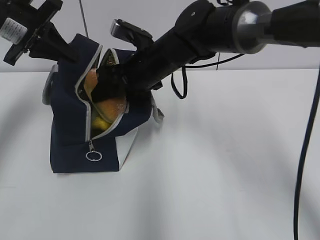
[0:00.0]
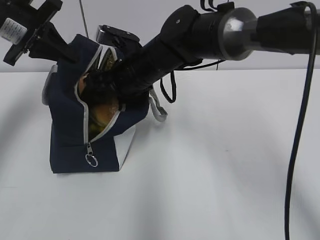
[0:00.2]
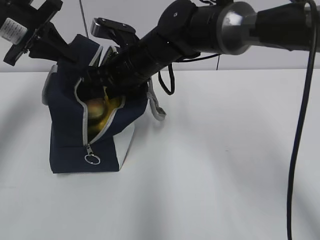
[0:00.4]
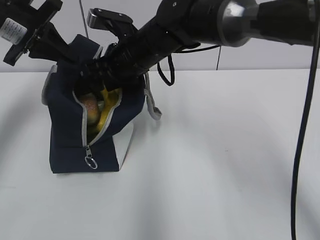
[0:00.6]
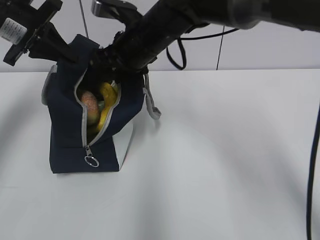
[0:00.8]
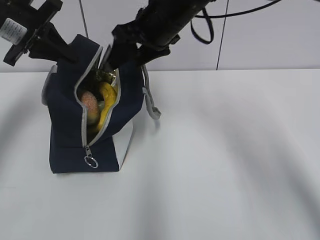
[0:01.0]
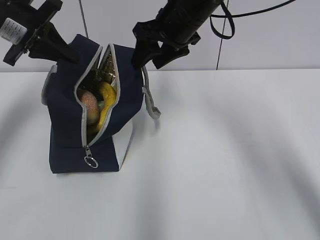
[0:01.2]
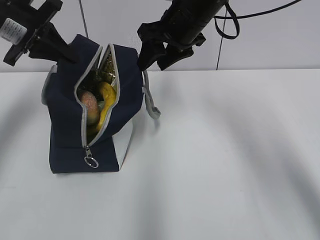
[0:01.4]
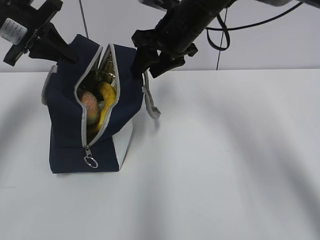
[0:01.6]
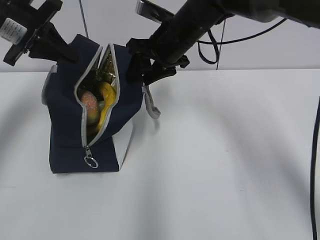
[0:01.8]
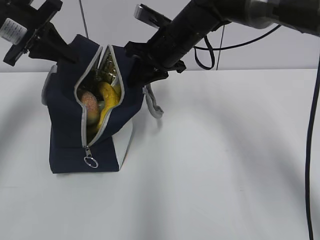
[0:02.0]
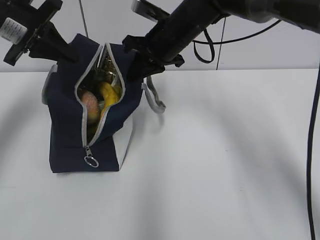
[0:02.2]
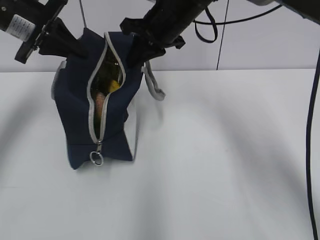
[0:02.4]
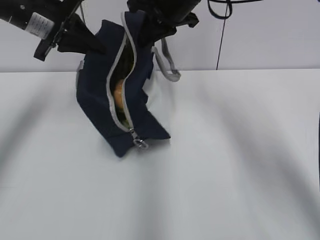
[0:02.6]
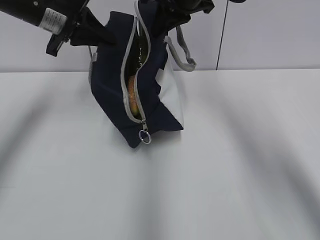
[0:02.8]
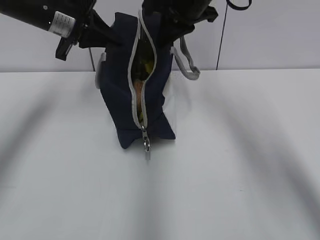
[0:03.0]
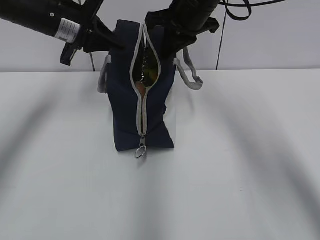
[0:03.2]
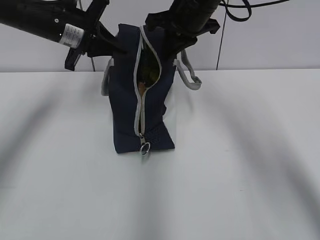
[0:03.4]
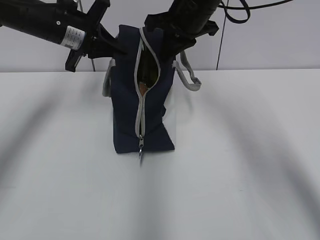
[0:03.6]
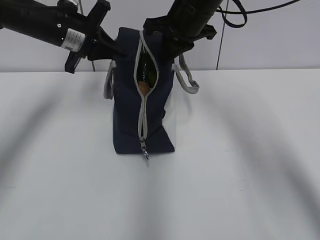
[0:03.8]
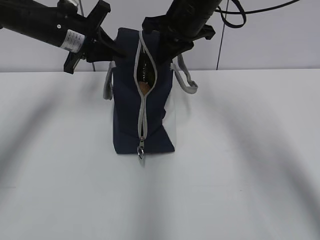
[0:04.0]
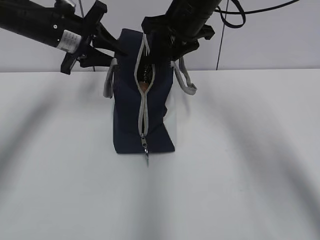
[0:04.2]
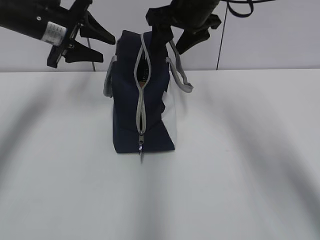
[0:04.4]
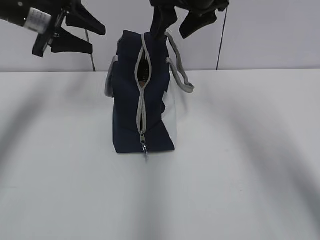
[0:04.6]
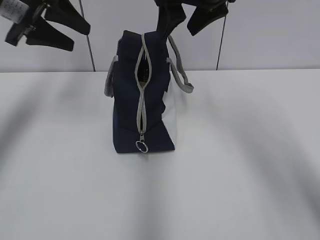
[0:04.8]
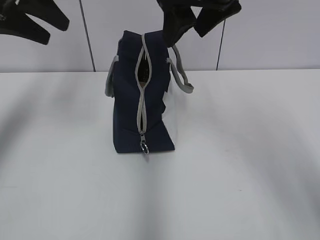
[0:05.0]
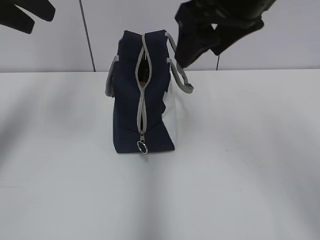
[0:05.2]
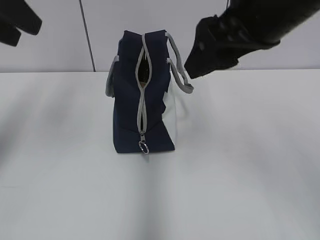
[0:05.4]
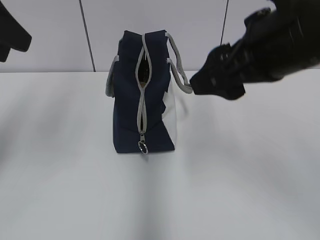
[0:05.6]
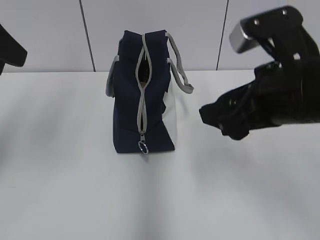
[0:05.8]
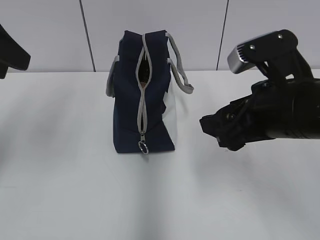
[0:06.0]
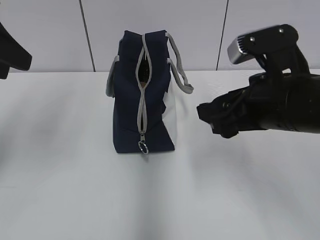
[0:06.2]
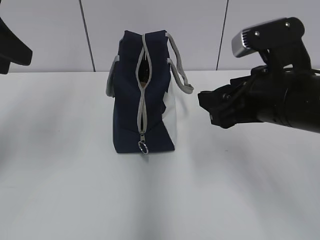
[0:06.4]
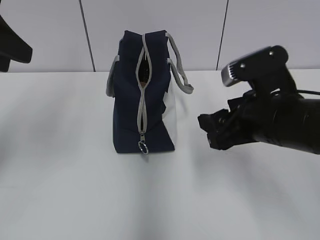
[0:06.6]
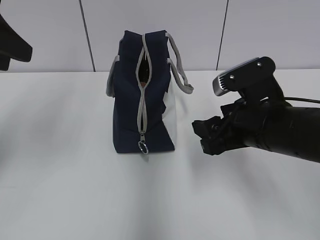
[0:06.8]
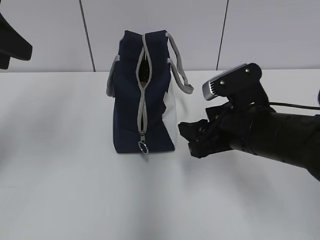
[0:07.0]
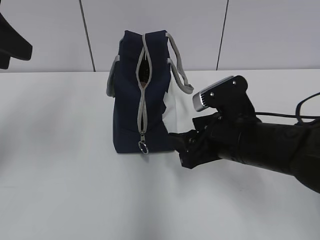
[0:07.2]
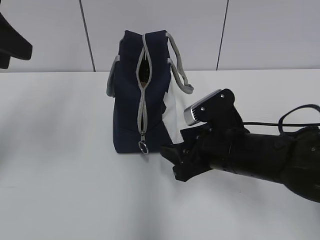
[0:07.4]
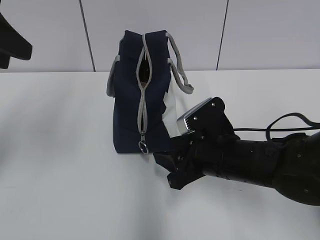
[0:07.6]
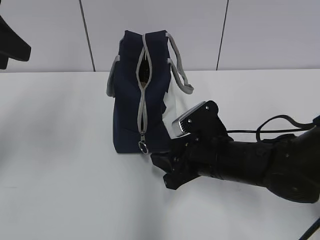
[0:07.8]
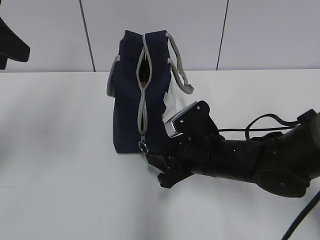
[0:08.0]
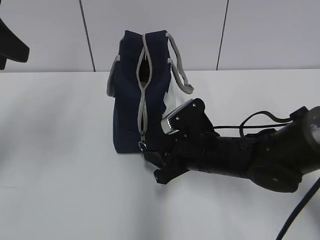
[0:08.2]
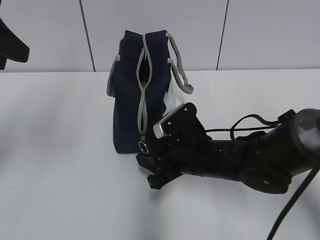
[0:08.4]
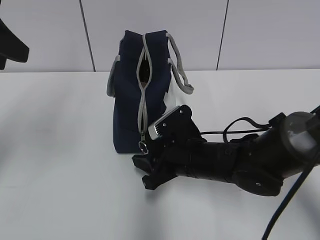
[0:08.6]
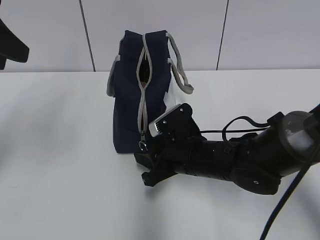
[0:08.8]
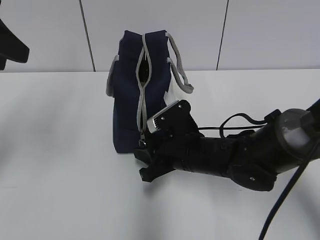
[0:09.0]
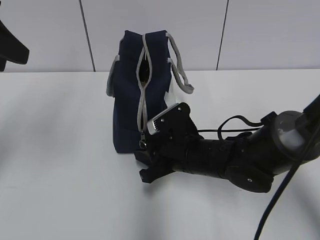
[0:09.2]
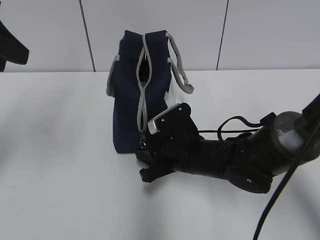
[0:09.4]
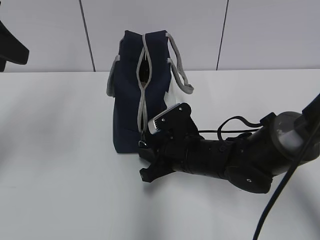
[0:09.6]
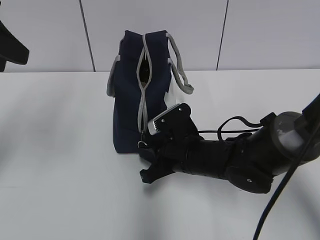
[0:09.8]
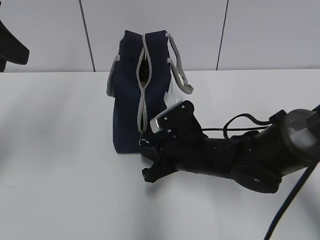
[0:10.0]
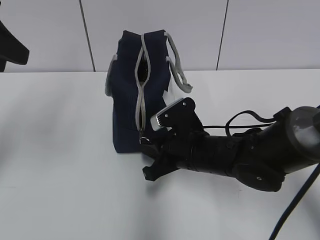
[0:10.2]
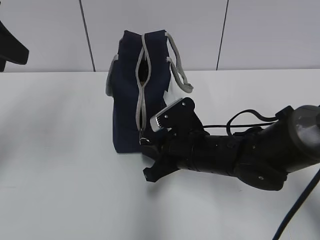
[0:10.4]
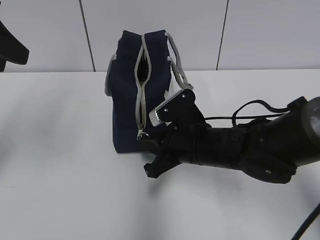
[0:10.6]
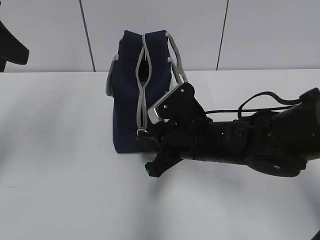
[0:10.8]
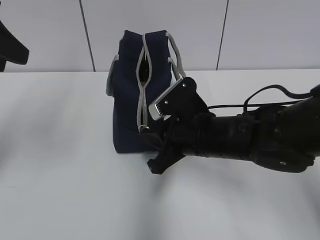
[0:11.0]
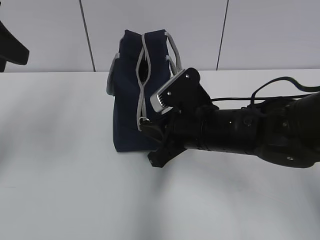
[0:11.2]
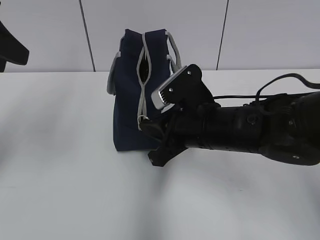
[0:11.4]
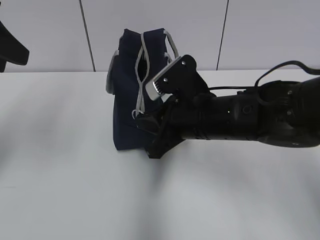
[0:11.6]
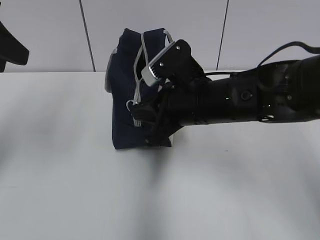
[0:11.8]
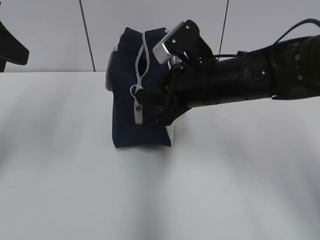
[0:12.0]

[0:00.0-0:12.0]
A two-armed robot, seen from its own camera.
Step, 0:00.8 to 0:02.0: Grab the lunch bag with your right hand.
Step, 0:02.4 to 0:04.0: Move the lunch bag to the right.
0:00.0 to 0:01.6: The right gripper goes approximately 10 cm upward and to the right.
0:01.6 to 0:03.0: The left gripper goes some 5 cm to the right. The right gripper travels upward by about 5 cm, and closes.
0:03.0 to 0:04.4: The right gripper opens. The left gripper opens up.
0:04.4 to 0:06.0: The left gripper is displaced backward and upward by roughly 20 cm; the right gripper moves backward, some 20 cm.
0:06.0 to 0:07.6: The right gripper is displaced downward by approximately 10 cm.
0:07.6 to 0:09.0: The right gripper moves about 5 cm.
0:09.0 to 0:10.4: The right gripper closes up.
0:10.4 to 0:12.0: The right gripper travels upward by some 10 cm.

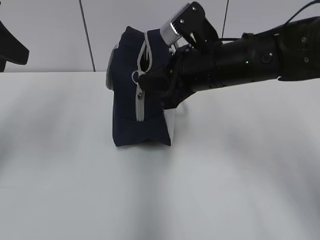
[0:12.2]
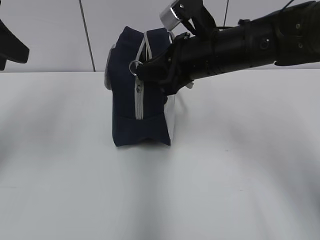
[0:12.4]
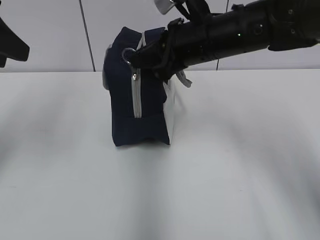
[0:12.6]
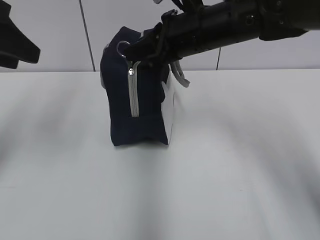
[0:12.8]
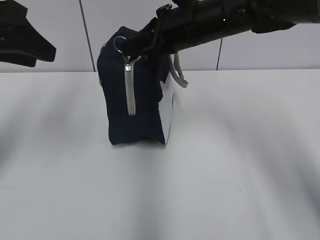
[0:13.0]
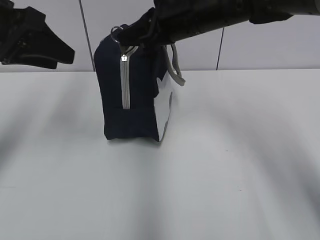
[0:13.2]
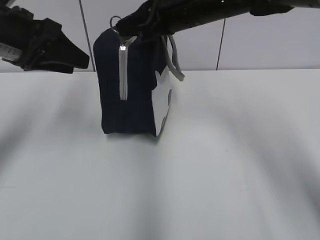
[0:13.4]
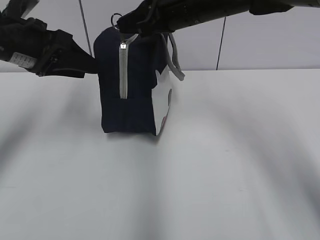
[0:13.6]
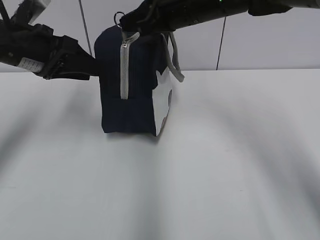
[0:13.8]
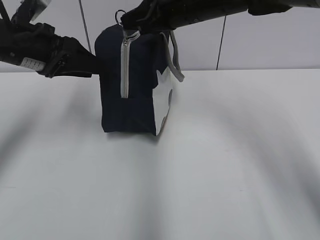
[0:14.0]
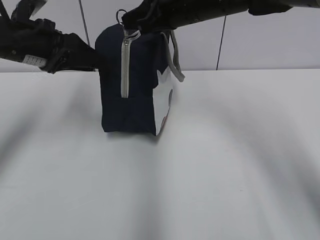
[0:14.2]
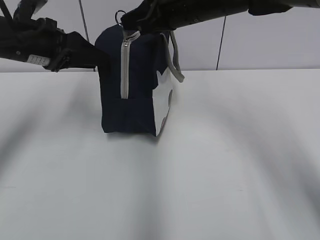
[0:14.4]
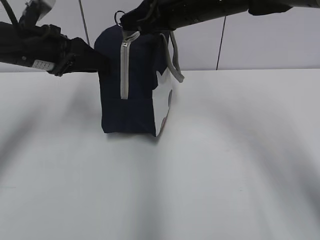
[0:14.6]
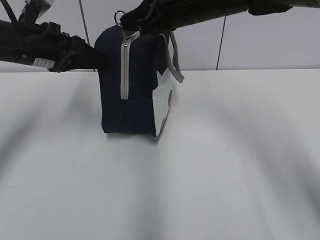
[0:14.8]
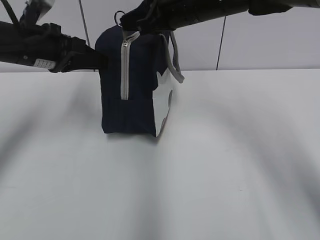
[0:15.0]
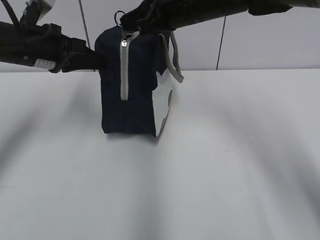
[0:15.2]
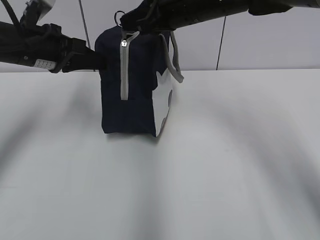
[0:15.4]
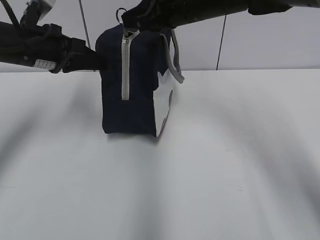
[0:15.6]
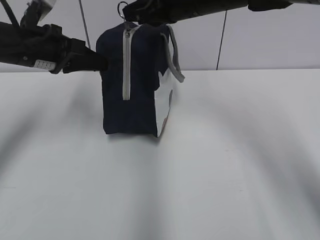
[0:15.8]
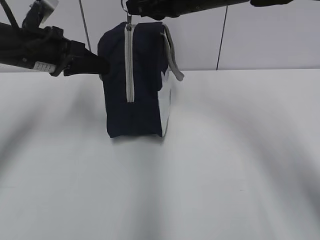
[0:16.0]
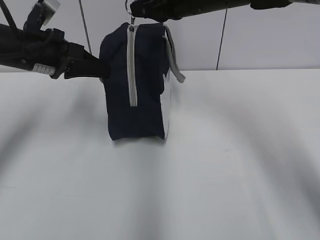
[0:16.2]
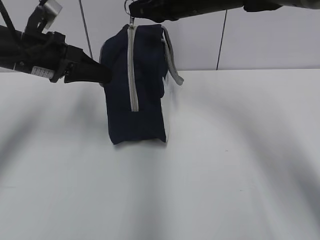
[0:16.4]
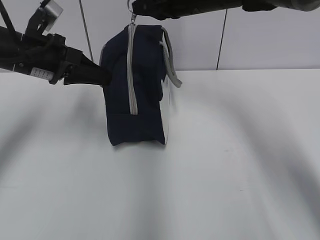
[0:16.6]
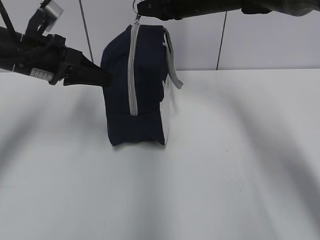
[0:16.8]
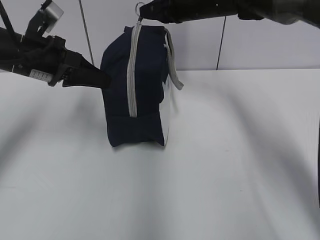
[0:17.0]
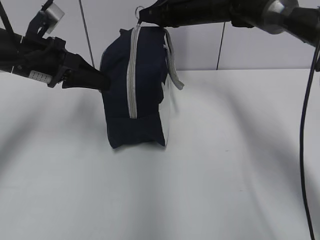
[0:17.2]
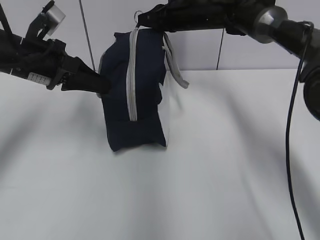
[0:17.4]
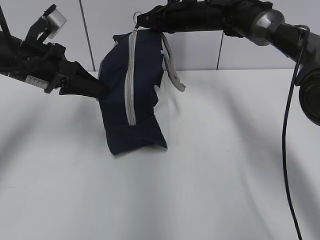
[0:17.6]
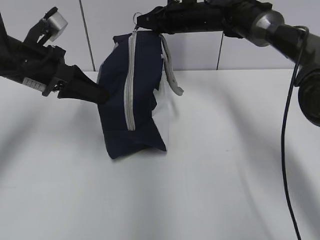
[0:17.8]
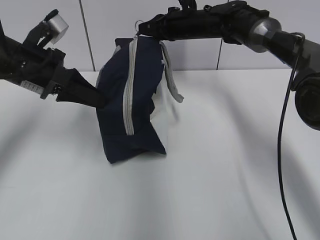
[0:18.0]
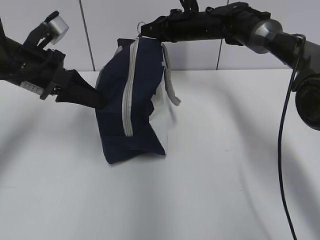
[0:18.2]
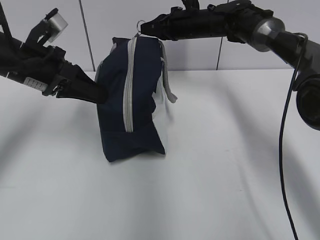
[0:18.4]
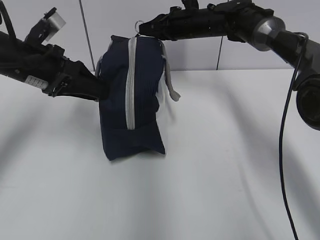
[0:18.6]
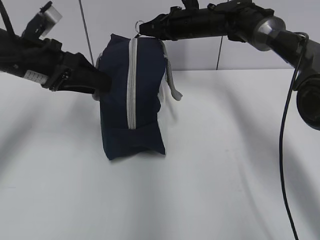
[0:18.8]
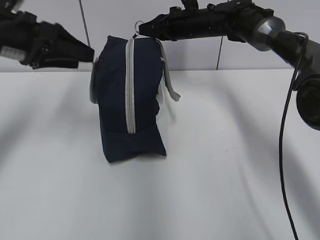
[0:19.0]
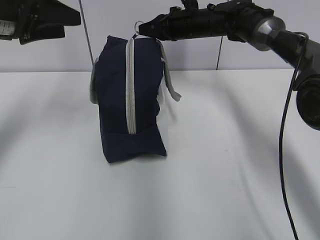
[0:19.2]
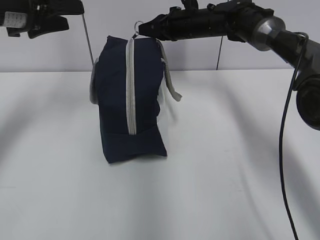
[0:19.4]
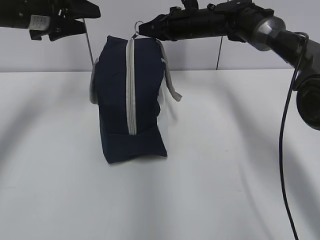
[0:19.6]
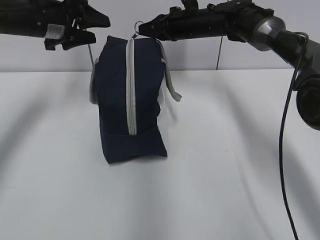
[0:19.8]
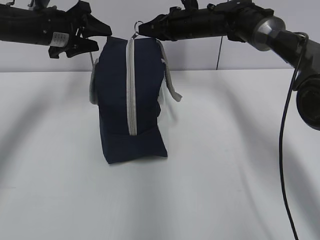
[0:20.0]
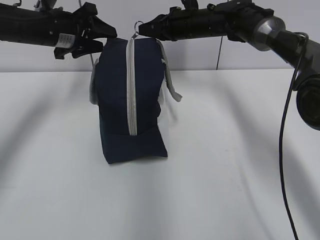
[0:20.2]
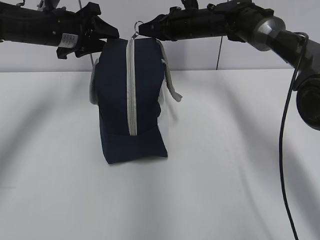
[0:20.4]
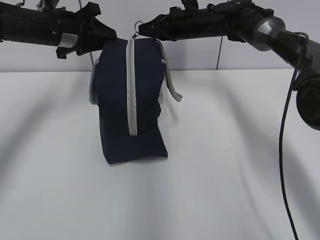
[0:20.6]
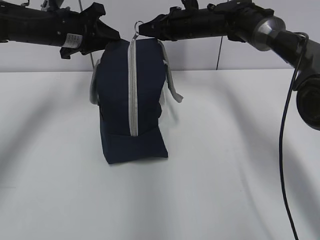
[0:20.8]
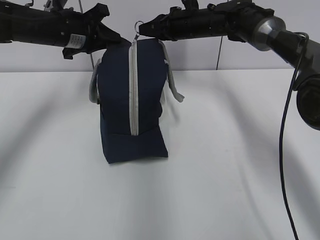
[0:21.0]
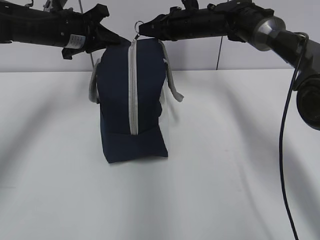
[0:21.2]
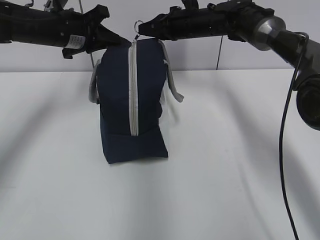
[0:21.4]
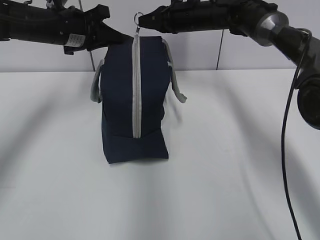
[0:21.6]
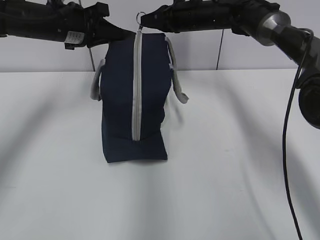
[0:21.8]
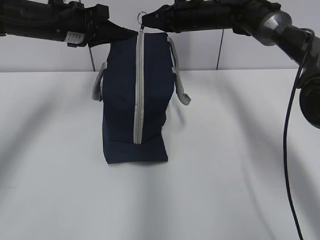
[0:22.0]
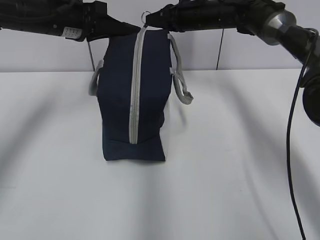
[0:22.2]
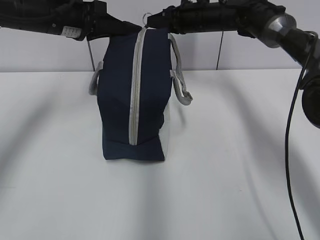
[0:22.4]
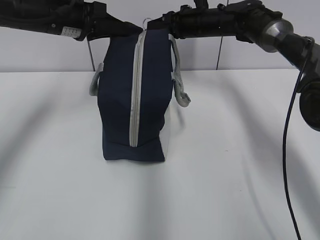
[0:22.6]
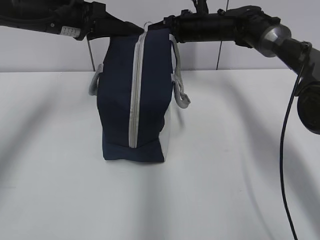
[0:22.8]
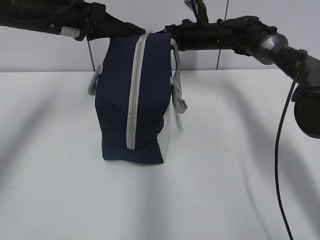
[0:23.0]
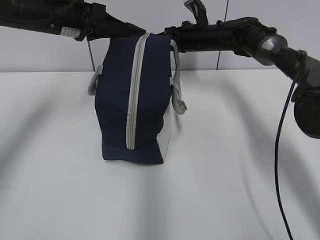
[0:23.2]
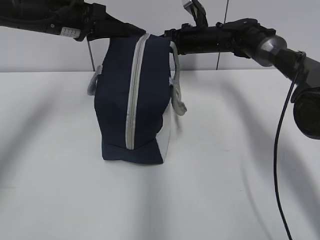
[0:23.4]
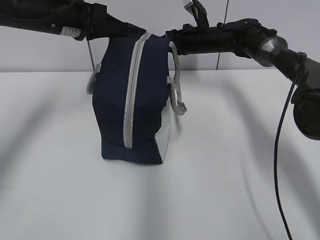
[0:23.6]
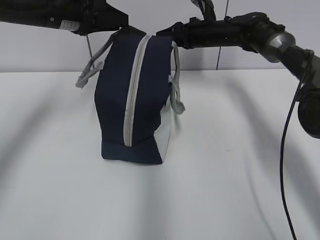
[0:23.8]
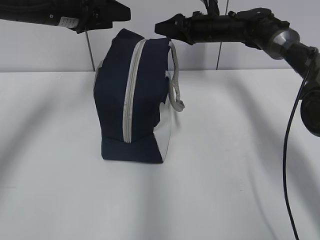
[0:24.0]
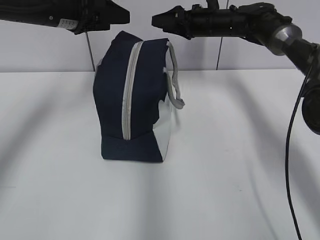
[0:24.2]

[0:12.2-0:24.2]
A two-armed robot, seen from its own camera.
Step, 0:12.2 to 0:18.6: Grab the lunch bag with your left hand.
Step, 0:19.0 to 0:23.6: Pull the zipper with your right hand.
0:12.2 to 0:13.8: The right gripper goes roughly 10 cm forward and upward, while the left gripper goes about 15 cm forward and downward.
0:13.8 to 0:15.2: The left gripper closes its fingers.
0:15.2 to 0:16.6: The right gripper moves forward, approximately 5 cm.
0:16.6 to 0:18.2: The right gripper heads forward and downward, covering roughly 10 cm.
0:18.2 to 0:19.8: The left gripper travels forward by approximately 10 cm, and opens up.
0:19.8 to 0:21.2: The left gripper closes its fingers.
0:22.6 to 0:24.2: The left gripper opens, while the right gripper opens up.
